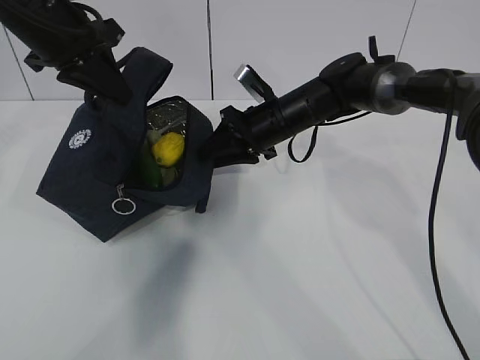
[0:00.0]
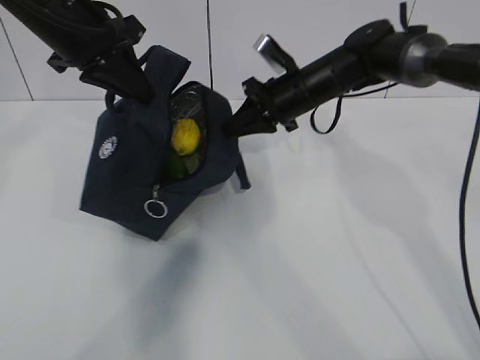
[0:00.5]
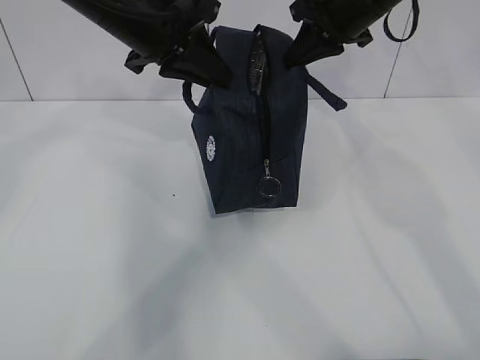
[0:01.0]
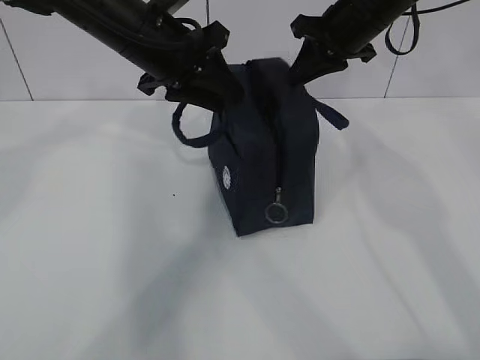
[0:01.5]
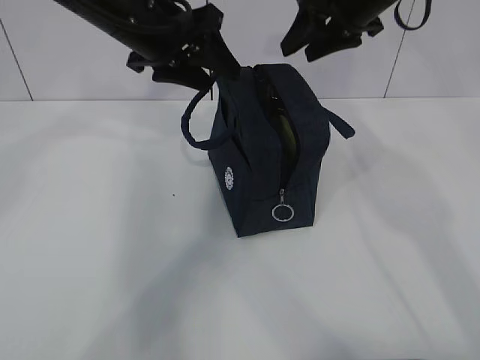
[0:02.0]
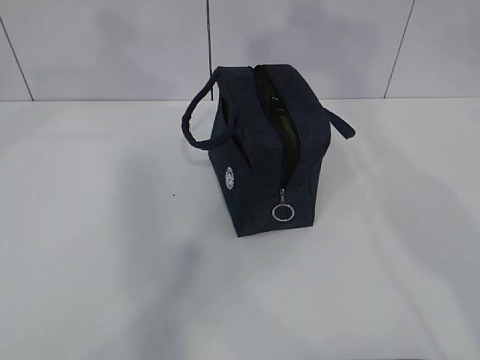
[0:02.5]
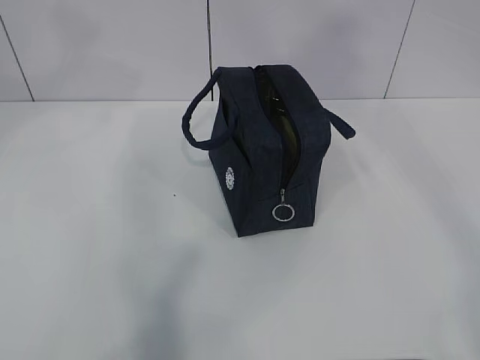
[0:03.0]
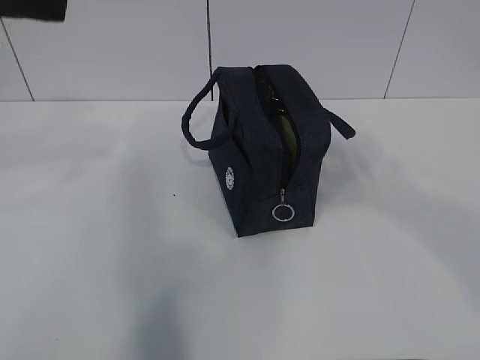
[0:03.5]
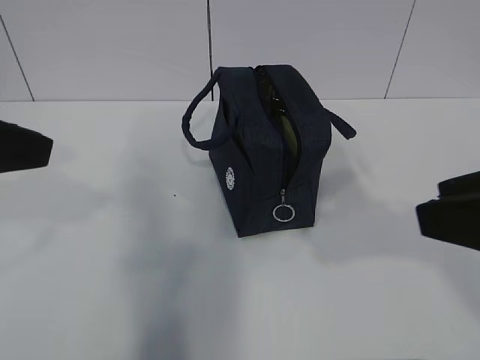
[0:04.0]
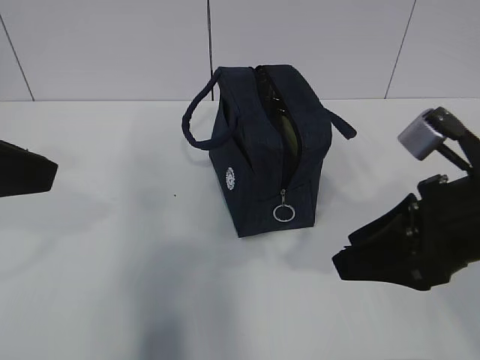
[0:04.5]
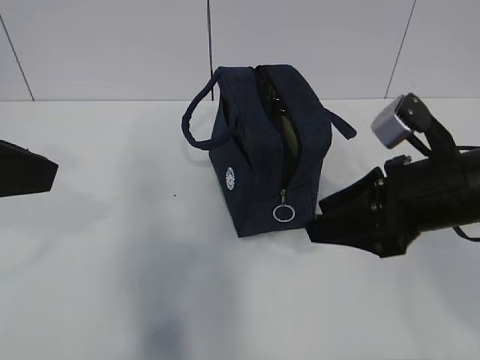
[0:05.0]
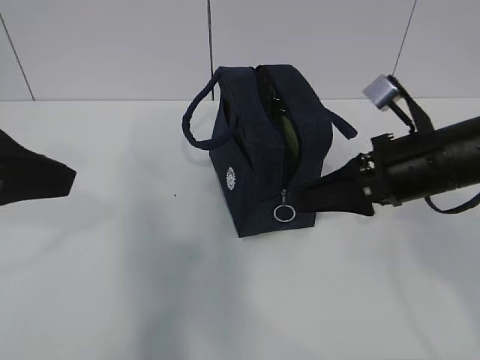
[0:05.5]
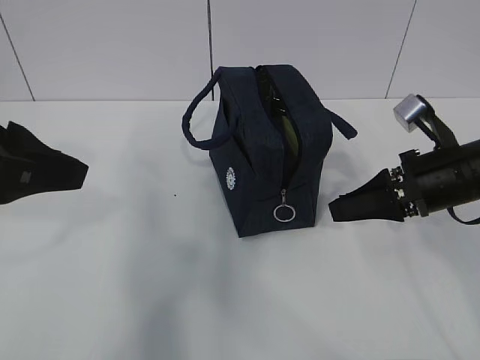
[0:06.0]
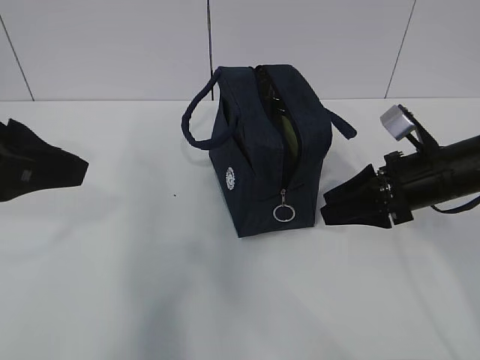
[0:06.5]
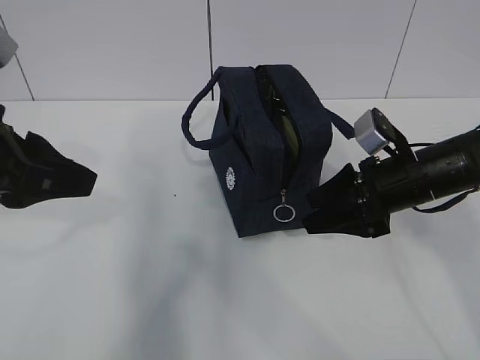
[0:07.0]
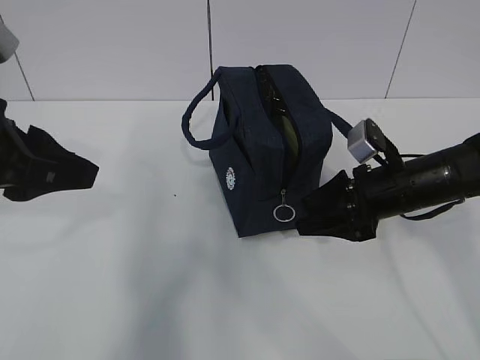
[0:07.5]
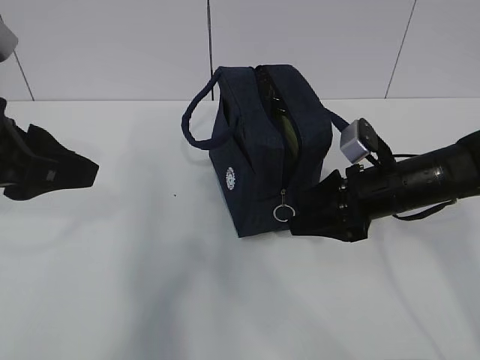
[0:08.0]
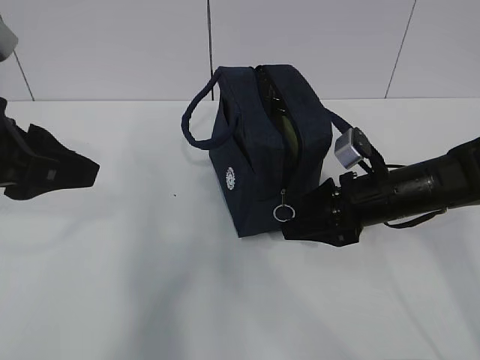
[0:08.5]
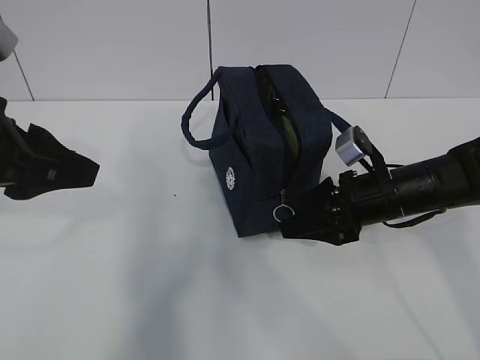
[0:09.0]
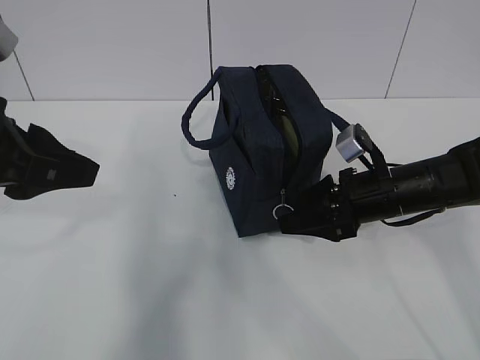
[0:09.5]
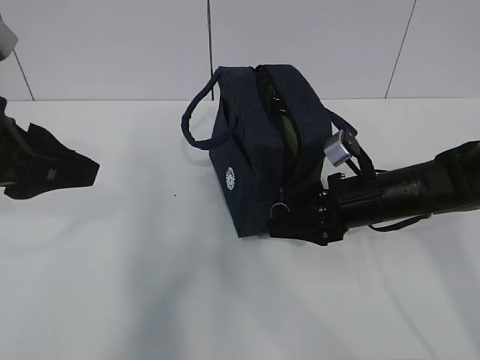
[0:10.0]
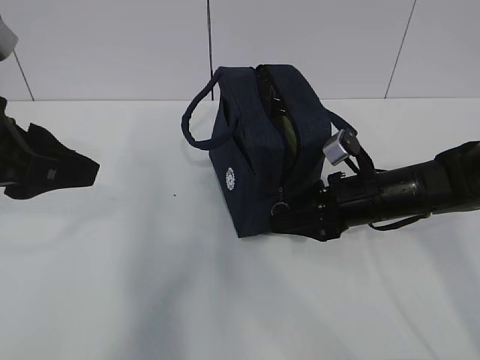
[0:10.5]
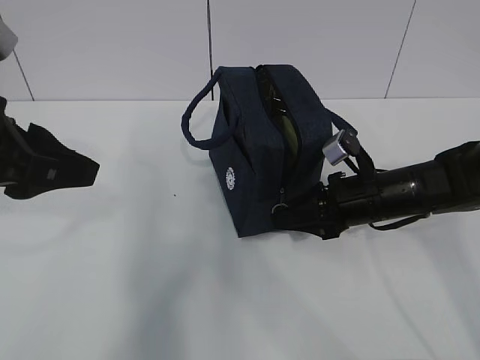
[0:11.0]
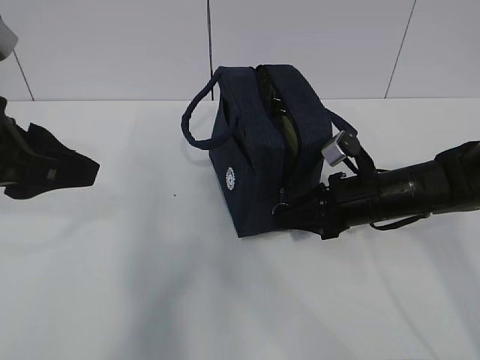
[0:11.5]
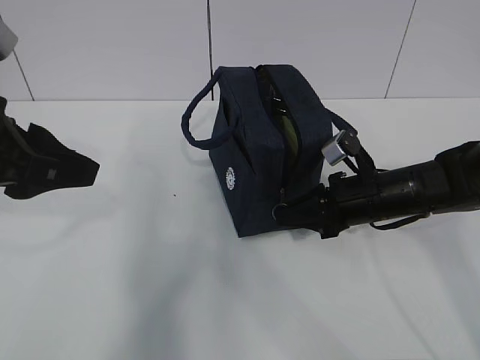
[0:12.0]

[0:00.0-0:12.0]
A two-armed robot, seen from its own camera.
Step, 0:00.0 to 0:11.0: Grab the lunch bag with your left hand.
0:00.0 to 0:02.0: The right gripper travels upward and to the right by approximately 20 cm, and closes and opens again. Meanwhile the left gripper travels to the right by approximately 10 cm, and opens.
0:02.0 to 0:04.0: The left gripper travels backward and to the left by approximately 25 cm. Meanwhile the right gripper travels backward by roughly 35 cm.
0:04.0 to 0:06.0: The right gripper shifts approximately 25 cm forward and downward.
0:06.0 to 0:08.0: The right gripper ends up approximately 5 cm from where it was.
0:08.0 to 0:10.0: The grippers move only a little.
0:10.0 to 0:12.0: The right gripper closes up.

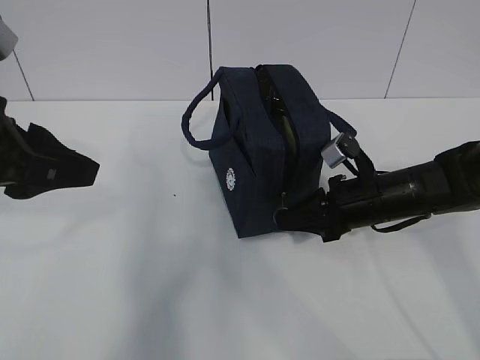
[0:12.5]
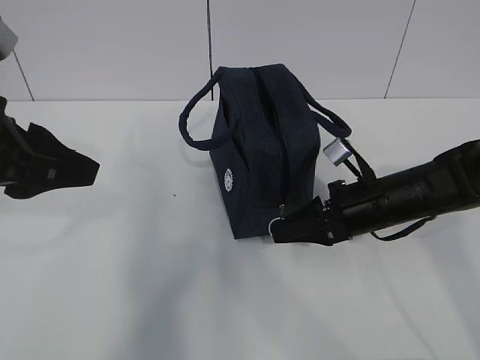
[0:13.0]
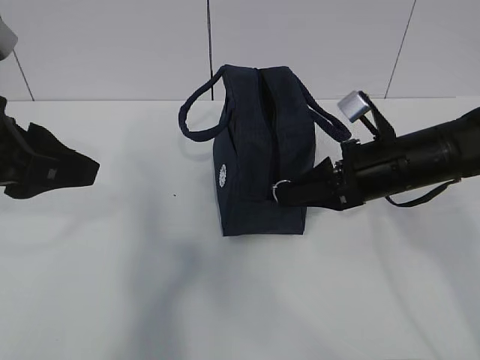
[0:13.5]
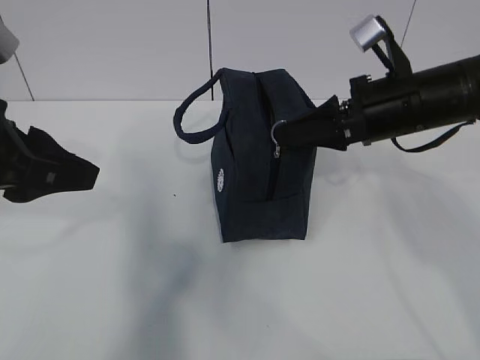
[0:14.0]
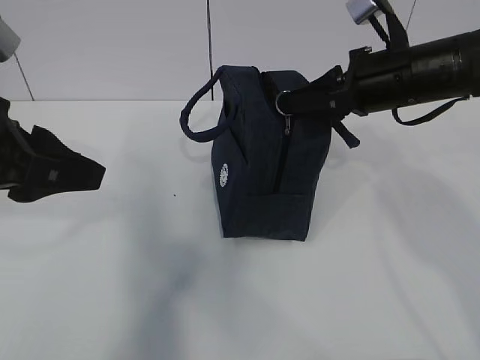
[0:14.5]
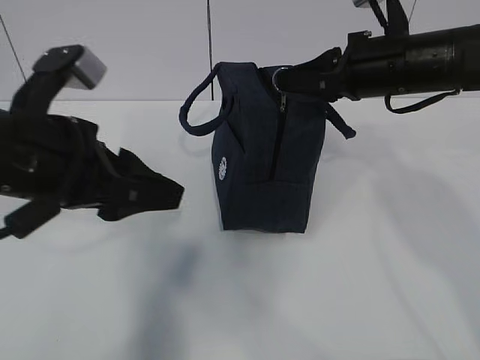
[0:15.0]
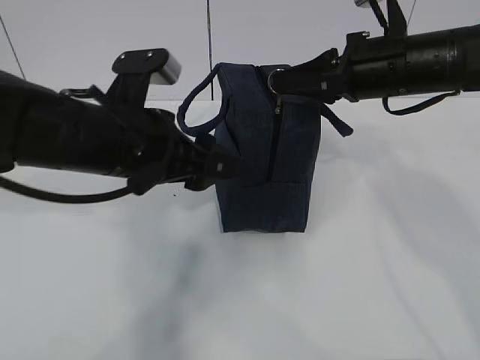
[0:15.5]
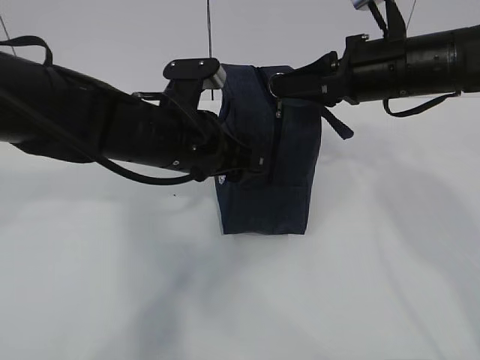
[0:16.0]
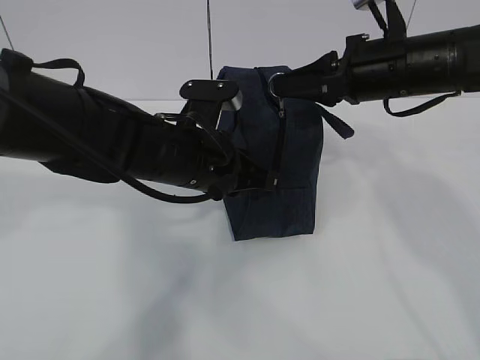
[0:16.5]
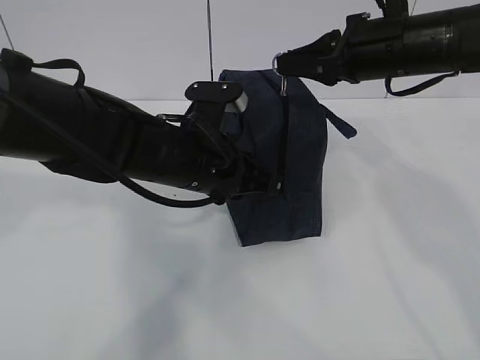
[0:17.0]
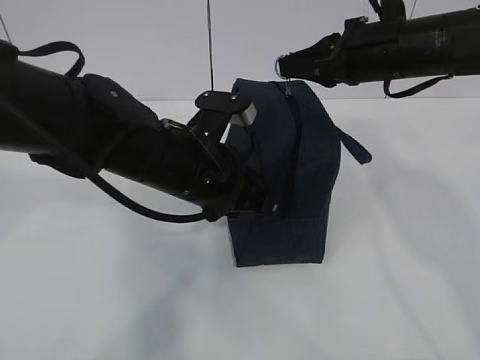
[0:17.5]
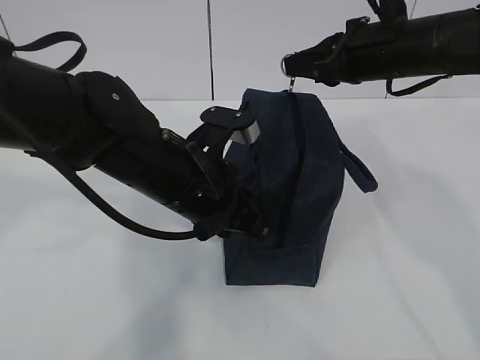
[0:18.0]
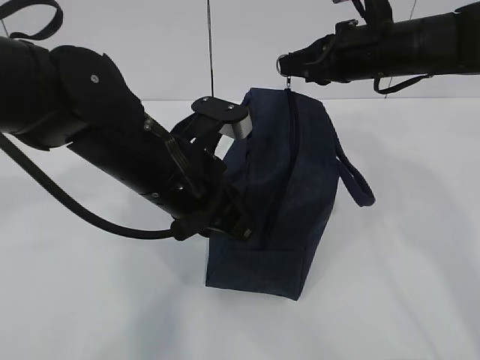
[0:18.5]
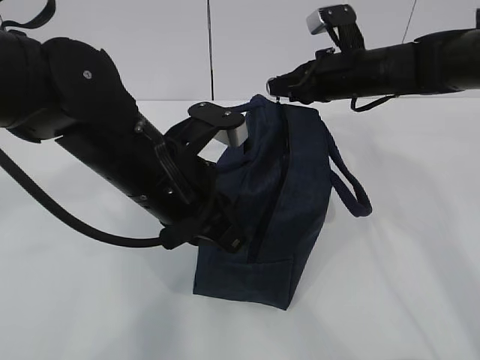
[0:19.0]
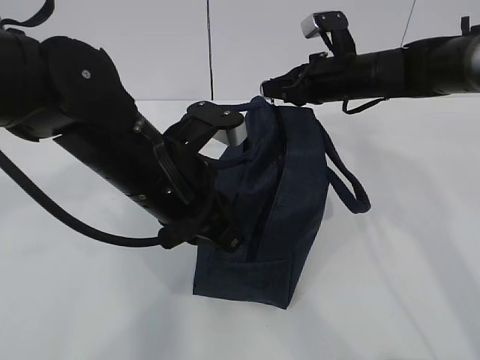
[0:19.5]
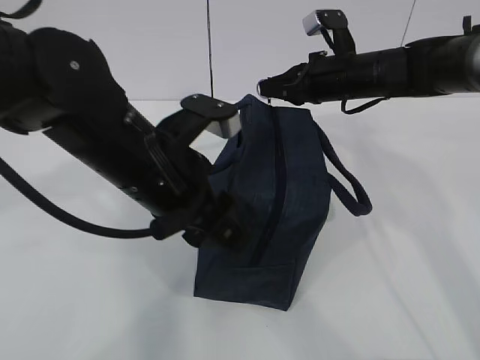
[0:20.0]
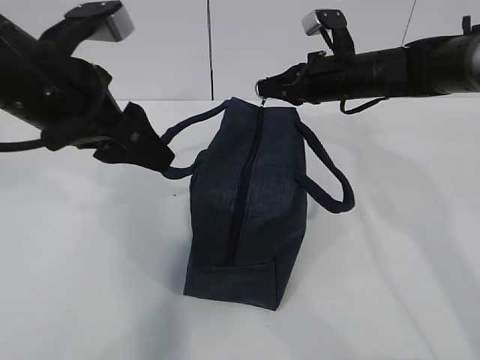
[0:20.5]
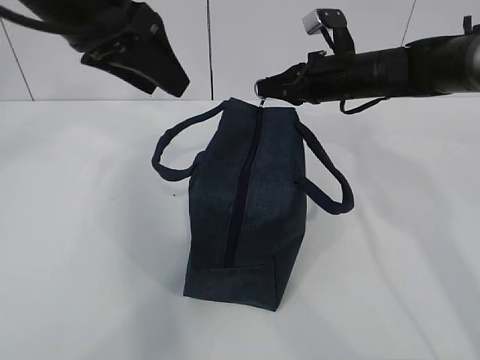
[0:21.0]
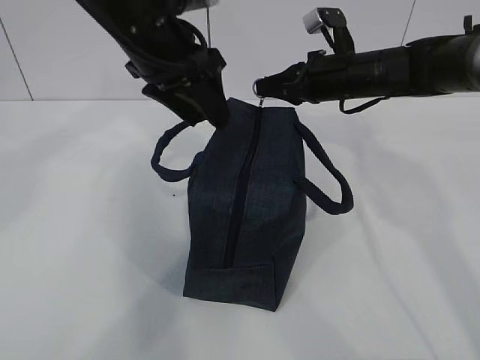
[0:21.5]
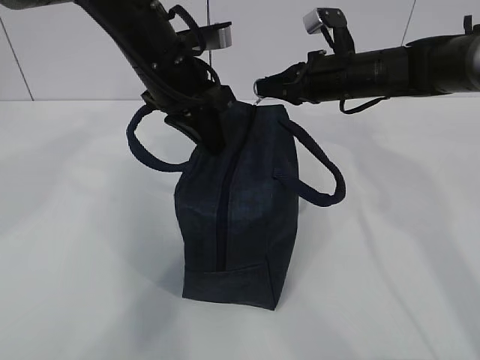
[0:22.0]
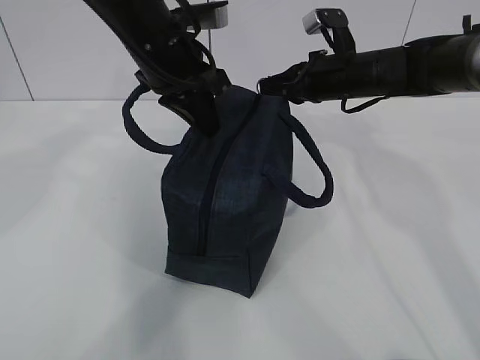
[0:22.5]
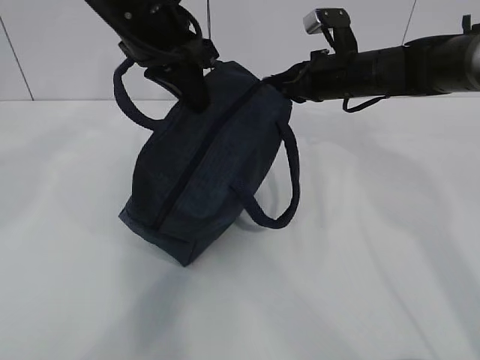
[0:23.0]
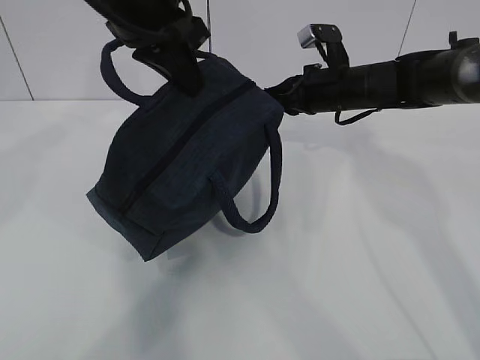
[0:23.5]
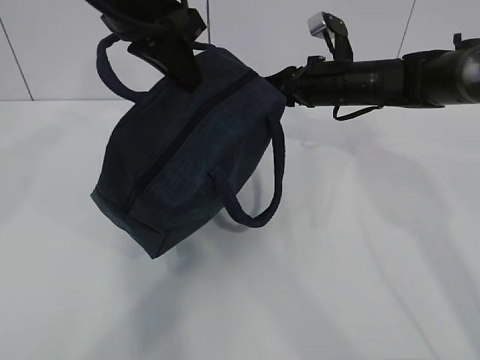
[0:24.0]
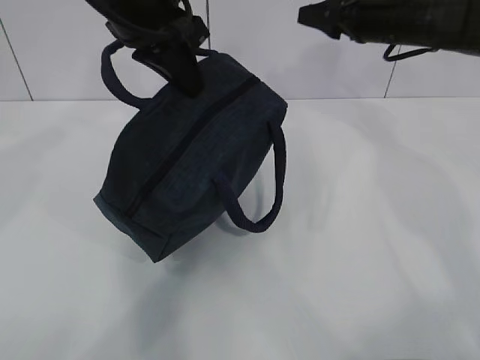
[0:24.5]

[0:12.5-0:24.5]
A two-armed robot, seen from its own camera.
Step, 0:12.5 to 0:14.5: Pull the zipper with your right hand.
Step, 0:15.0 to 0:16.0: Grab the lunch bag with your left hand.
0:12.5 to 0:14.5: The right gripper travels upward by some 15 cm.
0:14.5 to 0:16.5: The left gripper travels to the right, downward and forward by about 20 cm, and closes up.
0:16.5 to 0:18.5: The right gripper is displaced forward by about 5 cm.
0:18.5 to 0:20.5: The right gripper shifts some 5 cm downward; the left gripper is displaced to the left and upward by about 10 cm, and opens up.
0:20.5 to 0:22.5: The left gripper shifts approximately 15 cm forward and to the right, and closes up.
0:22.5 to 0:24.5: Both grippers move upward, approximately 5 cm. The right gripper opens.

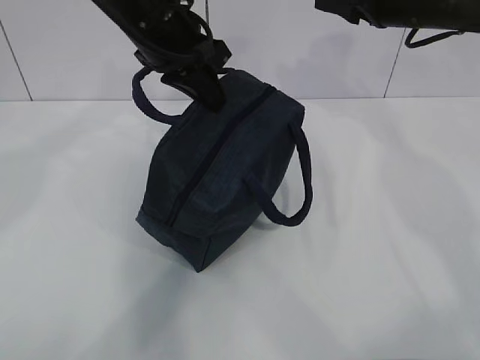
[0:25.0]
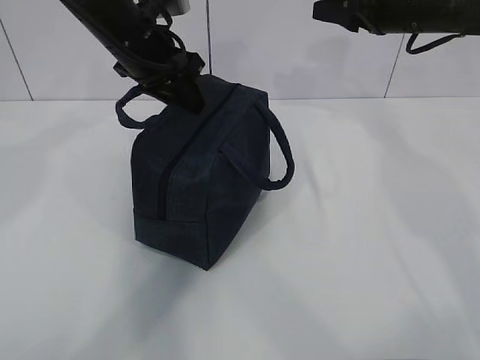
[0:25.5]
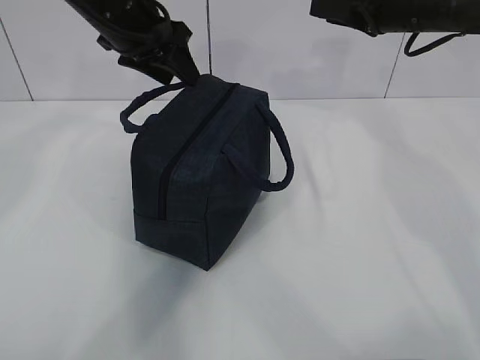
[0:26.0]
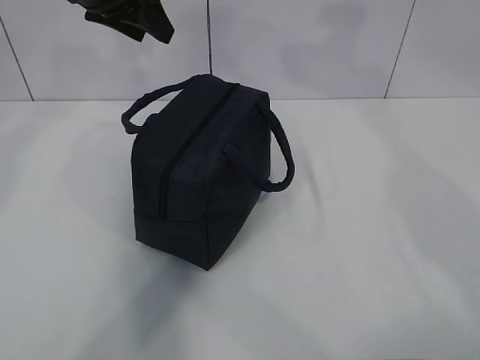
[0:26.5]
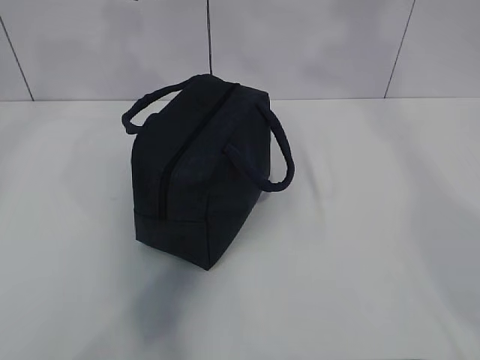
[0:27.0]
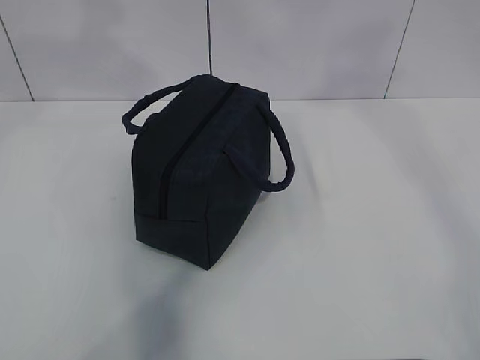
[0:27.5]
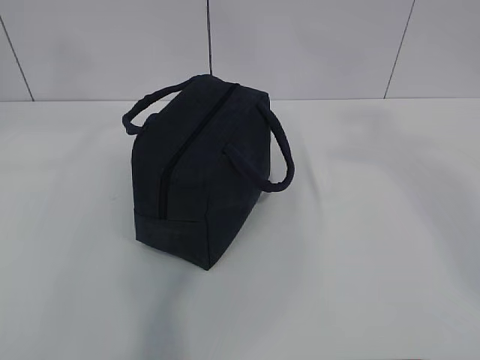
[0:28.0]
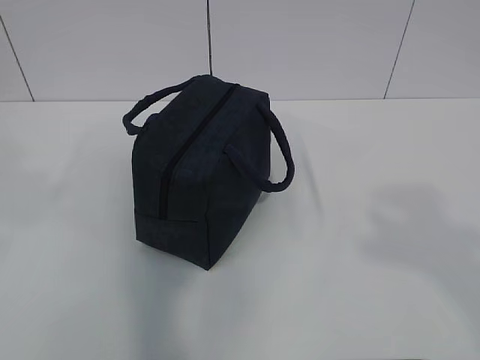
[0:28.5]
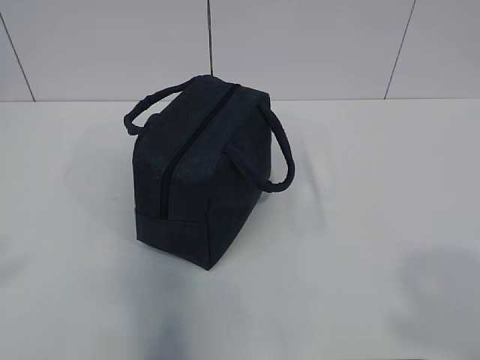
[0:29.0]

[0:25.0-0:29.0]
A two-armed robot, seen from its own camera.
0:25.0 to 0:27.0: The right gripper travels upward and backward by approximately 25 cm. The left gripper goes some 10 cm upward and to the left, and opens.
0:27.0 to 0:29.0: The two grippers go some 35 cm backward.
